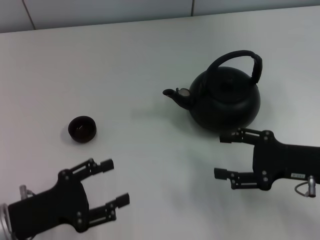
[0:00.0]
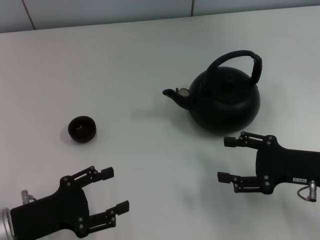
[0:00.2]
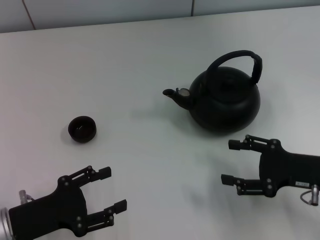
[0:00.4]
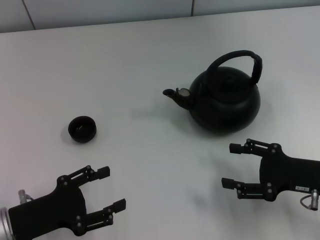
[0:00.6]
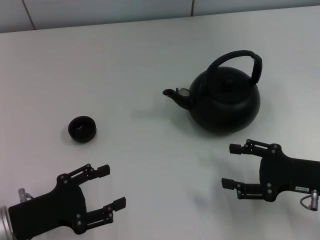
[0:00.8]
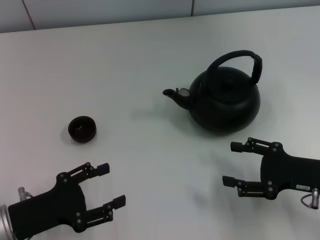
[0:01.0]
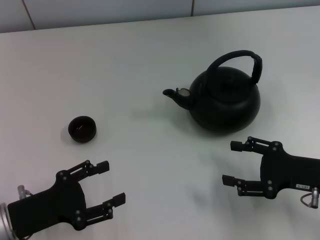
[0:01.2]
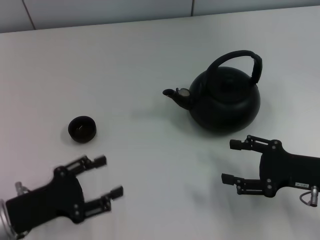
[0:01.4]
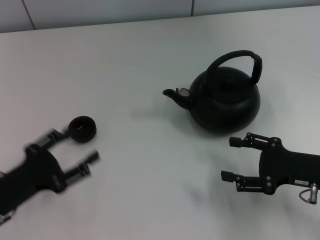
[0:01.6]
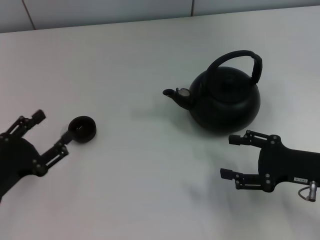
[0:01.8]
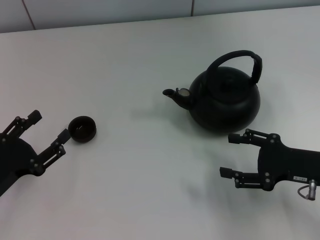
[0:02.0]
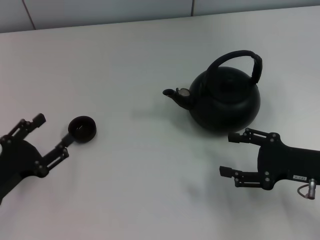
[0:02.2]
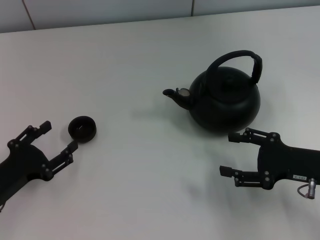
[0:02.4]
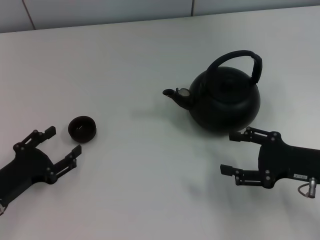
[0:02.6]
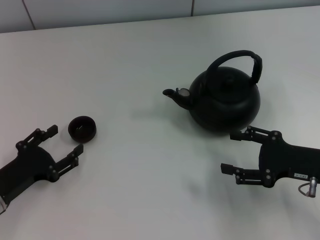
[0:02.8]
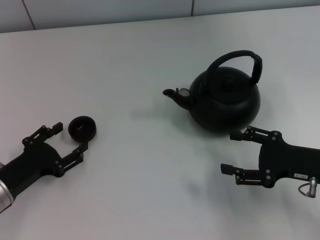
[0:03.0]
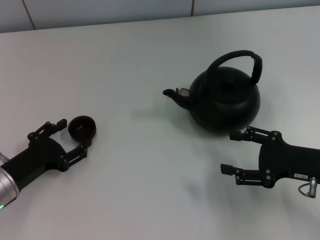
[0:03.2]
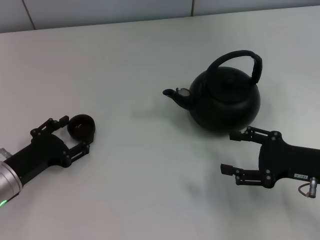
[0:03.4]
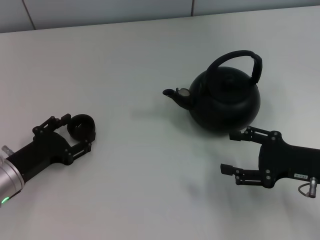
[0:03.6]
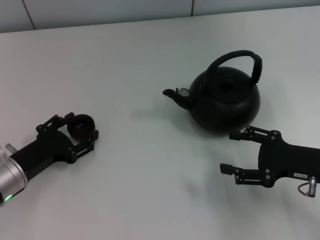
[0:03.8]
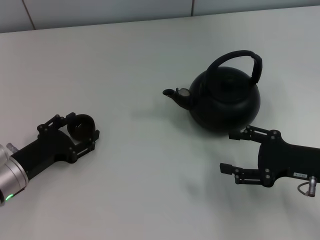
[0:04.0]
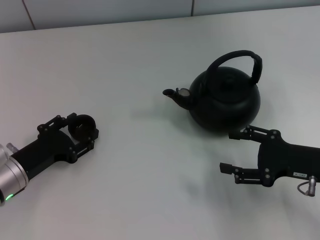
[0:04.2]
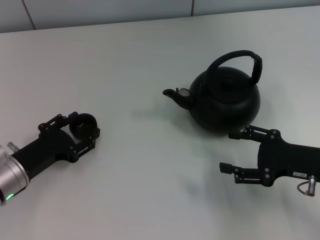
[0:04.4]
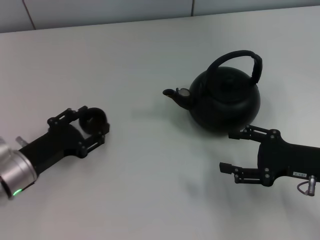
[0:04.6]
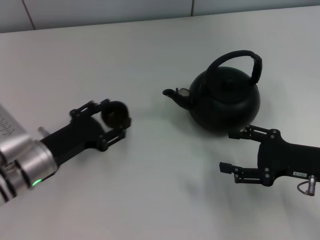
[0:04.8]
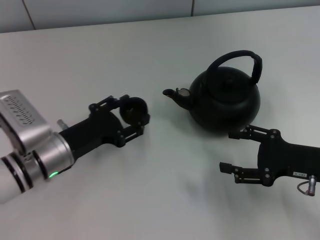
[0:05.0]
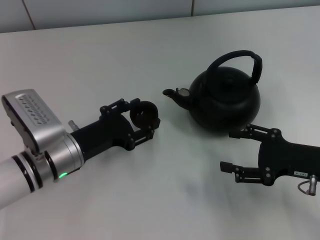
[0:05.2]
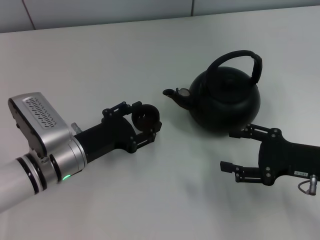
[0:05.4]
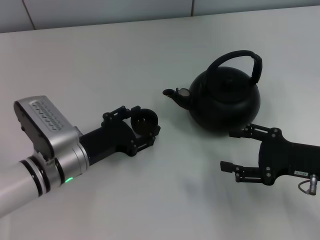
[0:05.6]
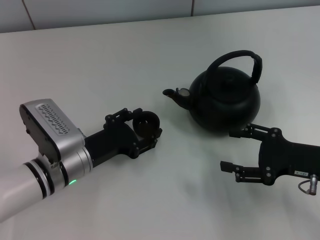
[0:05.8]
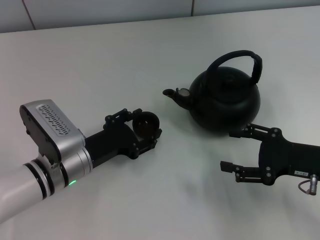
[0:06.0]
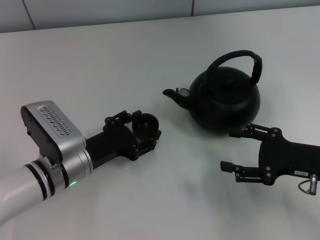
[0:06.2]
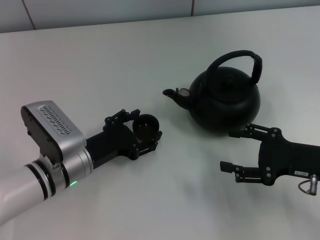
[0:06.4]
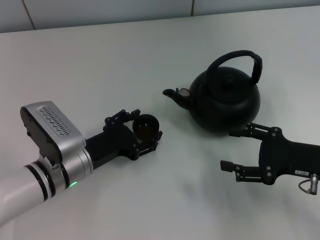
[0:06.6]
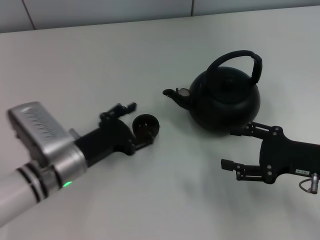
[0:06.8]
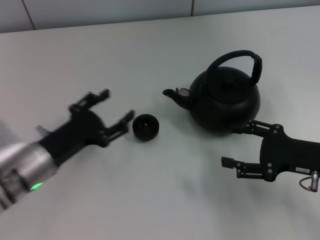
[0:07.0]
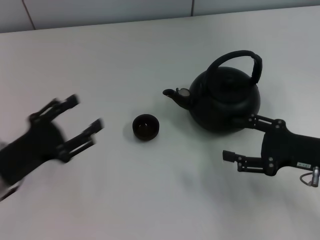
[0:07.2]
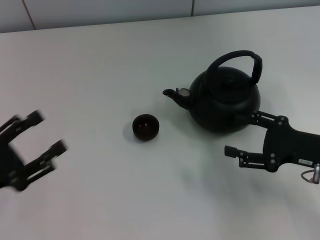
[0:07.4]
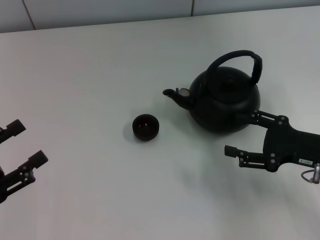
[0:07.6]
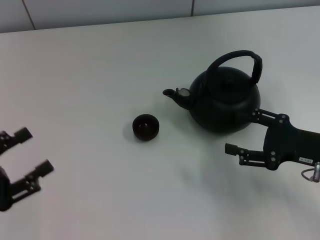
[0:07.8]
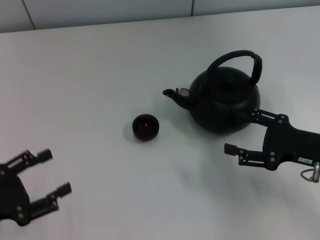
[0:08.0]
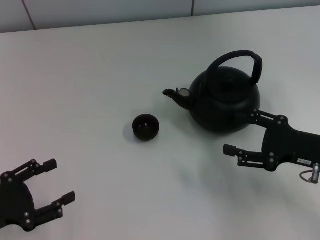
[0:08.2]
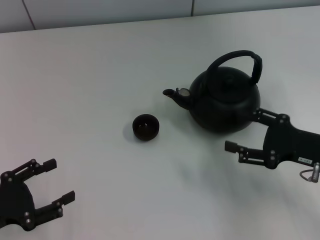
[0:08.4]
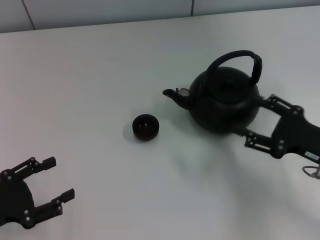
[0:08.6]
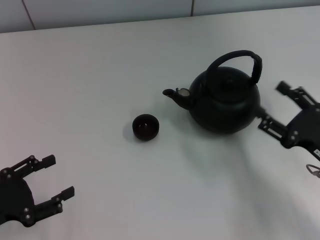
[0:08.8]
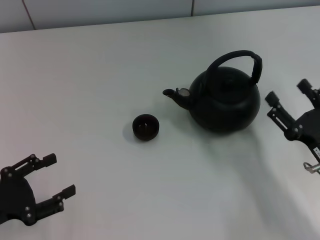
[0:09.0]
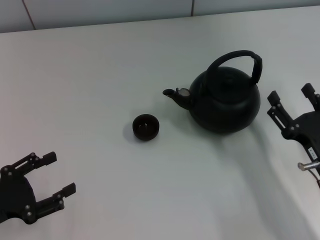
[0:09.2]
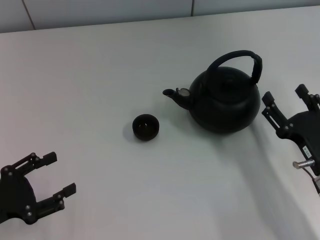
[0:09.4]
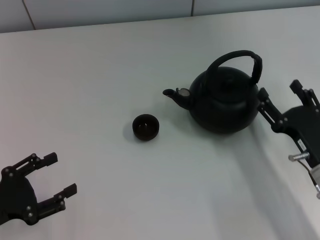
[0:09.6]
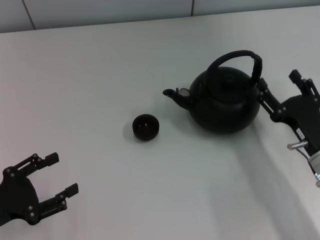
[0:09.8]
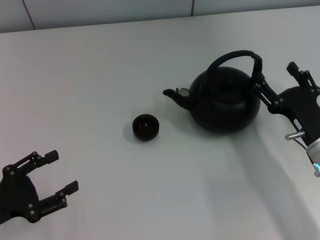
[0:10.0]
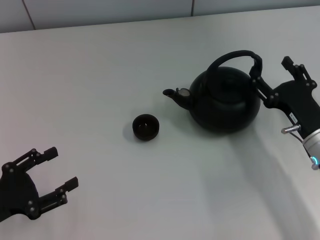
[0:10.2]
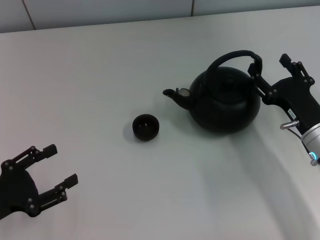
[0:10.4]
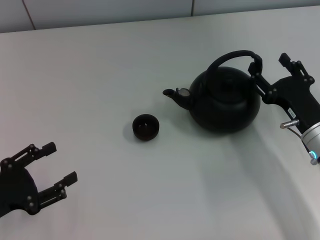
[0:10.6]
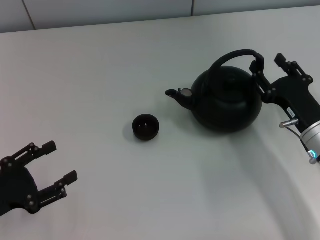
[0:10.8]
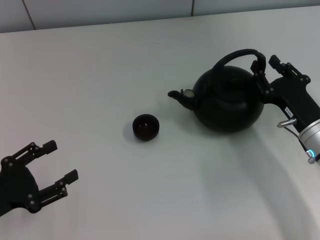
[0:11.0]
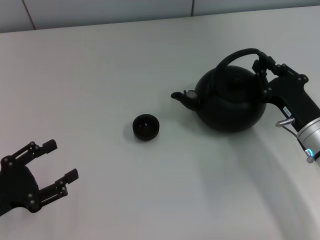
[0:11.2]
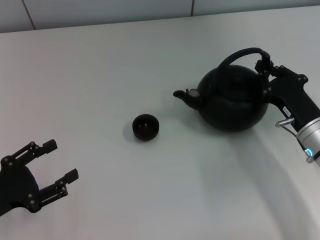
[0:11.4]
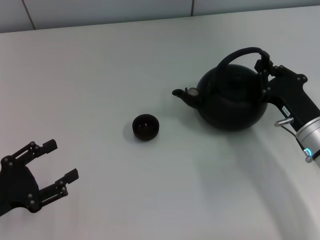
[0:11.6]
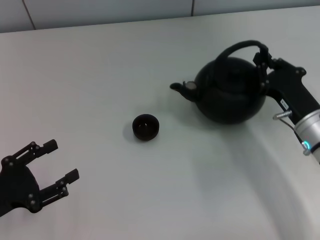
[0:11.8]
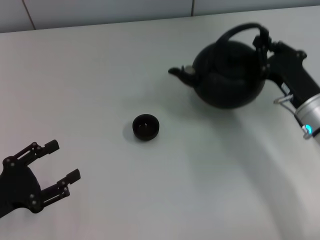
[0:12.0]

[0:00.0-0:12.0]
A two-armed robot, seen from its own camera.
Task of the whole recording: Grasp the handle of the teapot with one hand and pour tea into the teacup.
Step, 0:00.0 to 0:04.8: Pick up the teacup with the left gripper.
Step, 0:05.2 to 0:07.0: Place the teacup in the center of view with the left gripper.
0:00.0 to 0:01.6: There are only small adjustments of the grippers.
0:01.6 to 0:03.0: There are only small adjustments of the grippers.
0:03.0 to 0:04.4: The grippers move only a little.
0:04.4 to 0:06.0: The left gripper goes roughly 10 cm to the right.
0:06.0 to 0:07.6: The left gripper travels to the left and backward by some 20 cm.
0:07.6 to 0:09.0: The right gripper shifts approximately 5 cm backward.
0:09.0 to 0:10.4: The right gripper shifts roughly 5 cm forward.
0:10.4 to 0:12.0: The right gripper closes its fingers.

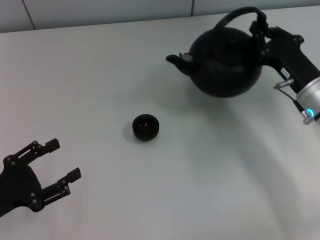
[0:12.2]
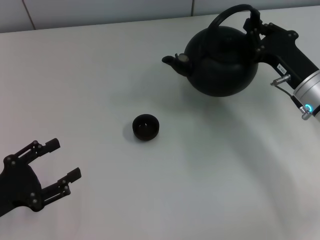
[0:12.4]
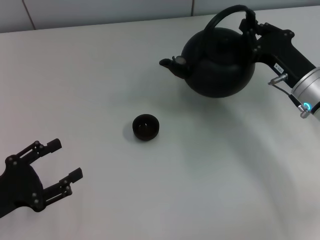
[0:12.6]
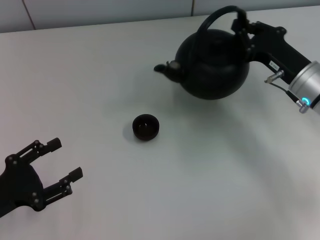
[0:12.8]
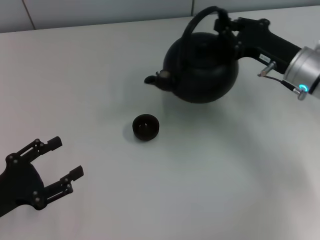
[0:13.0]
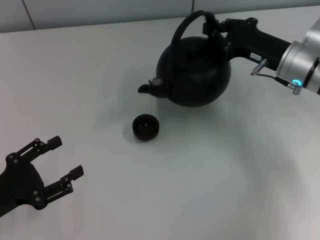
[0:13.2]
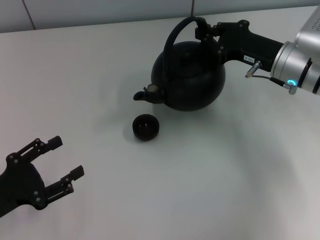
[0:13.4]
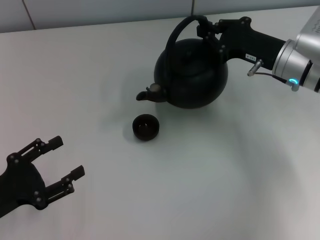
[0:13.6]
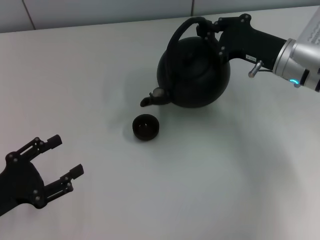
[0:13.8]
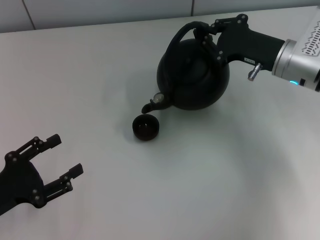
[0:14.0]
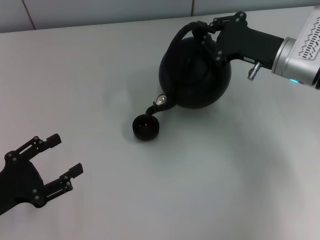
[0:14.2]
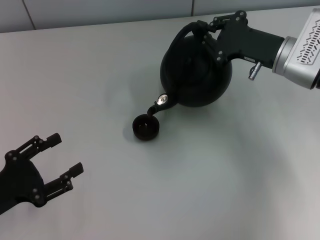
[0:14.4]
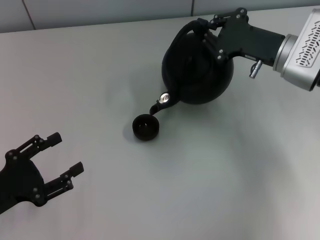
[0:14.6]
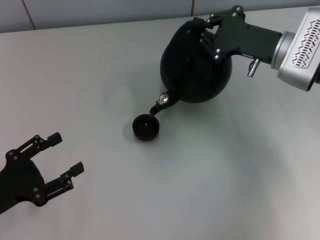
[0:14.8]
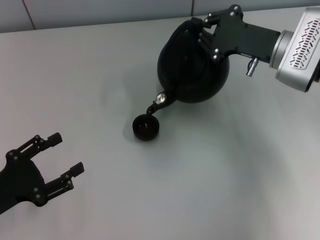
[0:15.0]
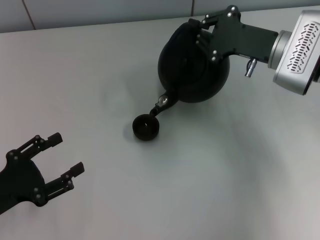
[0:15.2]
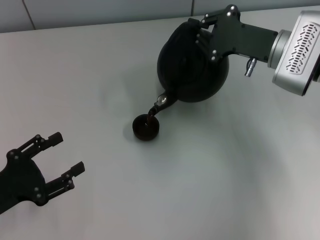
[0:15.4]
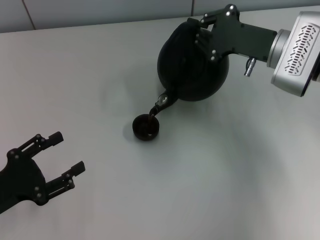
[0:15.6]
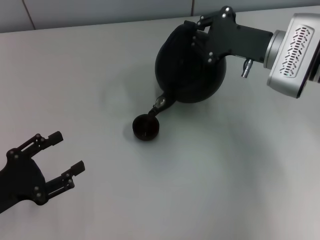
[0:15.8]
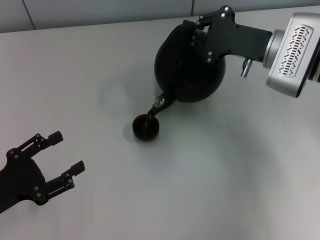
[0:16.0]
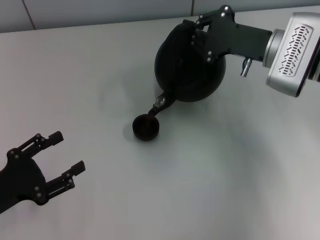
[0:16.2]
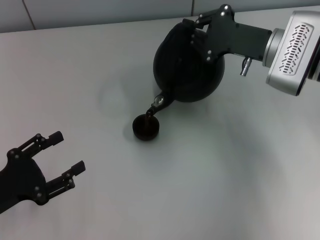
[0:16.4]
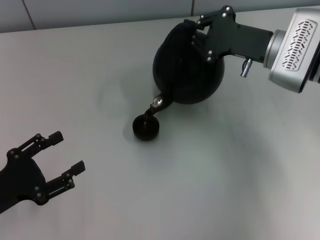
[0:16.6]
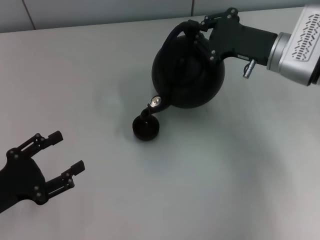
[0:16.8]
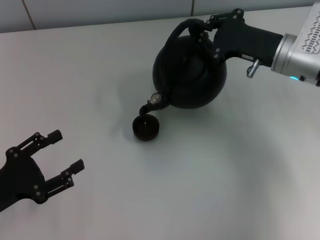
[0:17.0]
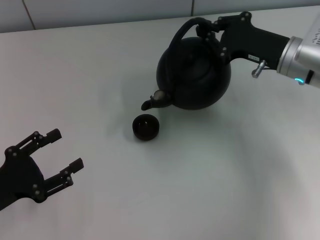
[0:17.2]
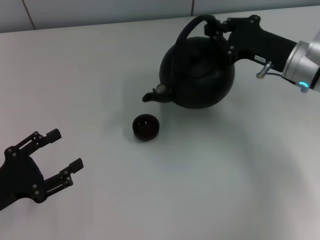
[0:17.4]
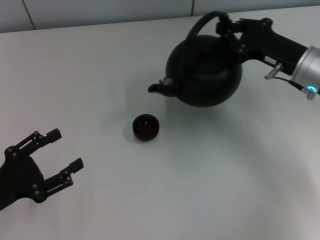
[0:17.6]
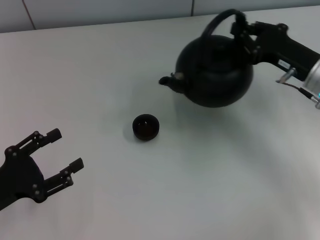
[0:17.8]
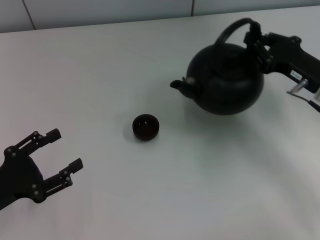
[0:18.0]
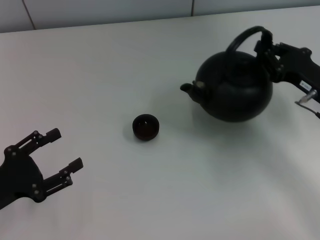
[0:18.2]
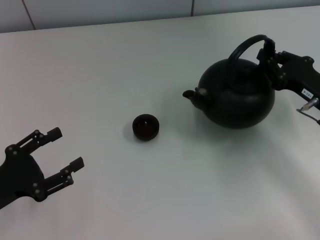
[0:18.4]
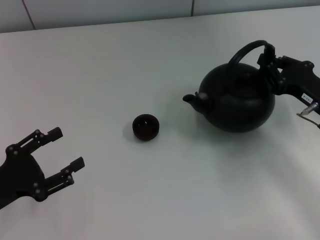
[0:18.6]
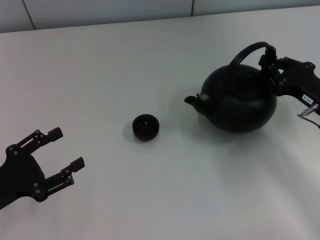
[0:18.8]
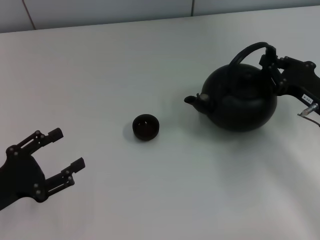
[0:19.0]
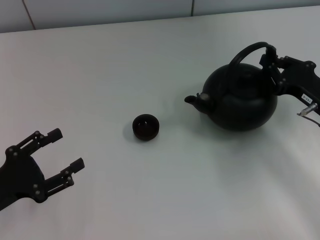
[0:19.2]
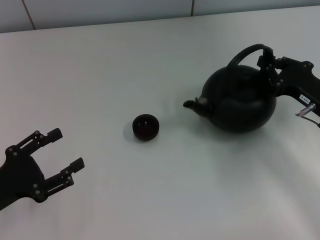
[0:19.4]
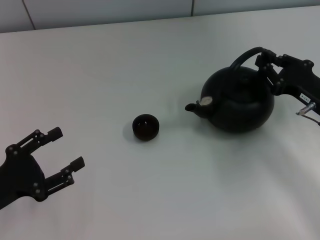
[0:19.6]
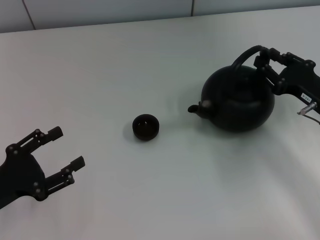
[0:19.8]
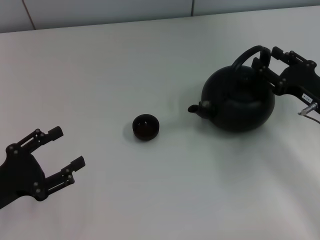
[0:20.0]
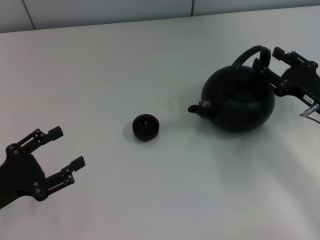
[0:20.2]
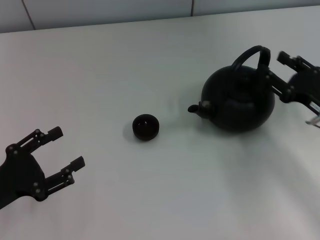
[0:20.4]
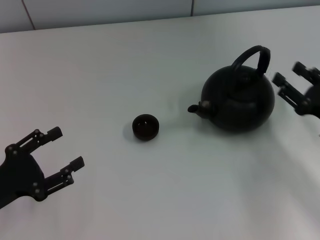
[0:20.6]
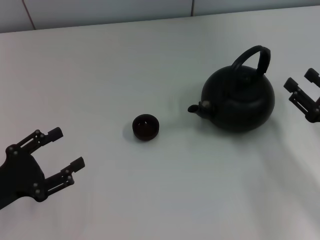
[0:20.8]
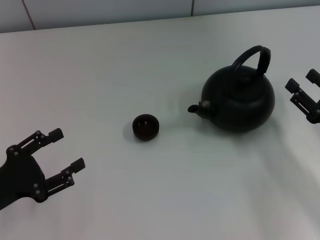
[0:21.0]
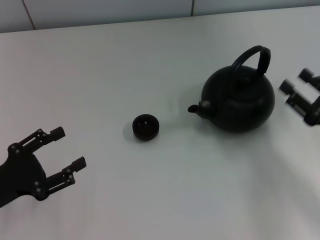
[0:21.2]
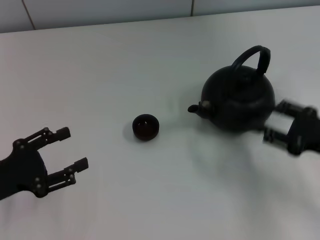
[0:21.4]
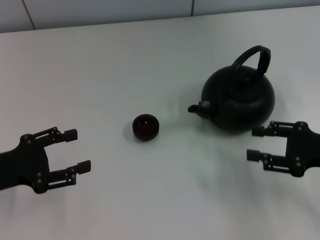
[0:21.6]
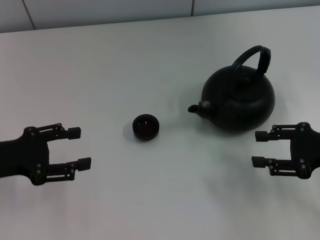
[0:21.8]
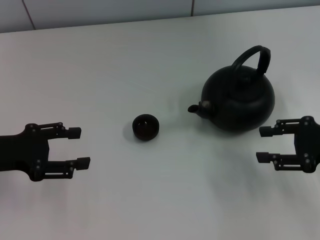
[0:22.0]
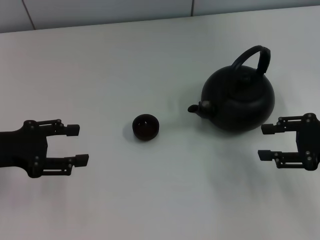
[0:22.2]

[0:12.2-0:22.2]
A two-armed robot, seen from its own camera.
Task of the whole recording: Grasp the handle of the teapot with one hand and pour tea into the teacup.
Step, 0:17.4 to 0:19.8: Put down the teapot with the right gripper.
0:12.2 to 0:13.6: The right gripper is displaced forward by approximately 5 cm.
0:15.0 to 0:16.4: The grippers move only a little.
0:16.4 to 0:18.0: The right gripper shifts about 10 cm to the right and backward.
0:18.0 to 0:19.4: There are only small adjustments of the grippers.
0:19.4 to 0:20.8: The right gripper moves backward, about 5 cm, and opens its fingers.
0:20.8 to 0:22.2: The right gripper heads upward, covering roughly 5 cm. The left gripper travels forward and upward by roughly 10 cm.
